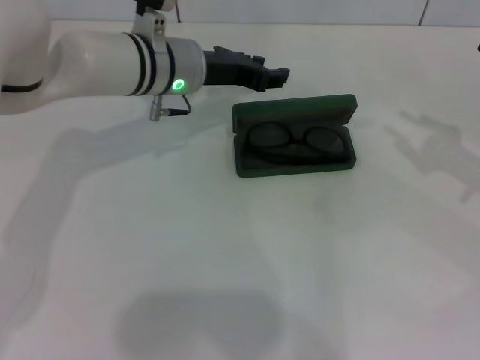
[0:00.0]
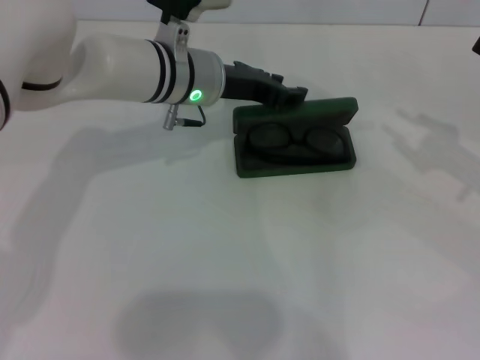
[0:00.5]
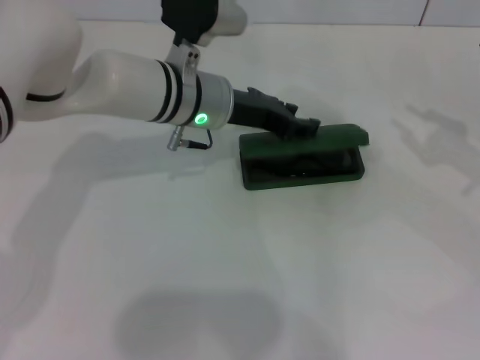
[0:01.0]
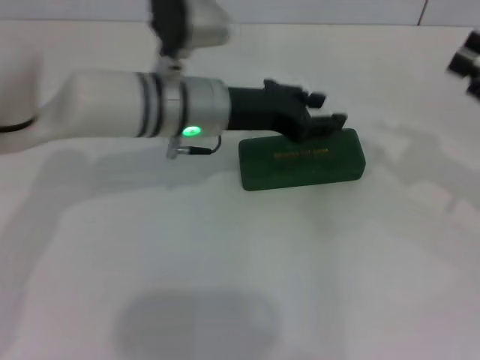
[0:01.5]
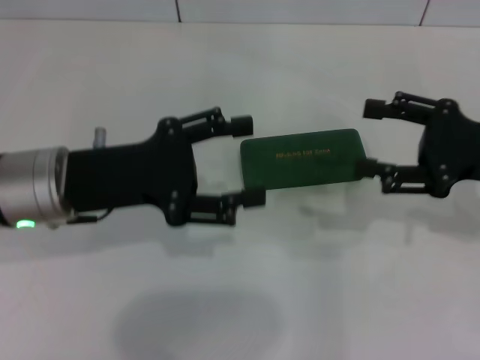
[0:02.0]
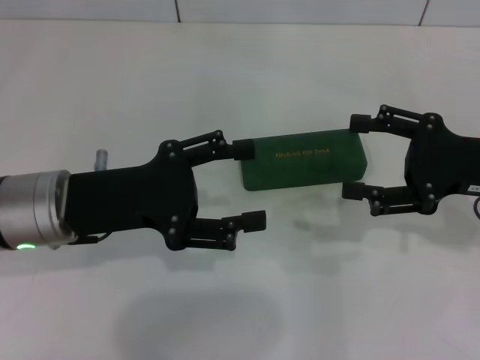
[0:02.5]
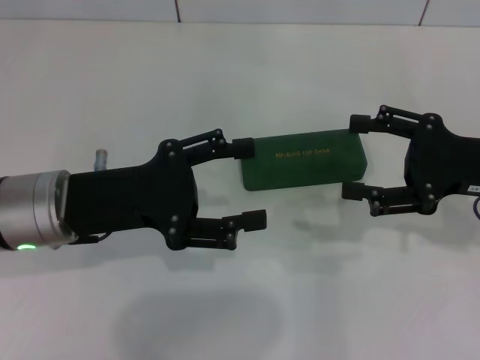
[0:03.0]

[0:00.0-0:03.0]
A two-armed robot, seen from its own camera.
0:00.0 to 0:01.5: The left gripper shifts approximately 5 cm backward.
0:01.5 to 0:03.0: The right gripper heads to the left, covering about 5 cm, and opens, while the left gripper moves to the left and backward, some 15 cm, and opens up.
